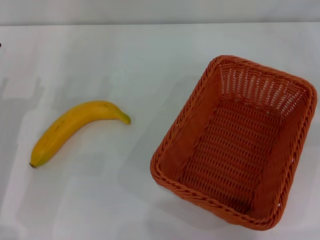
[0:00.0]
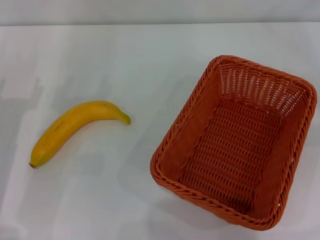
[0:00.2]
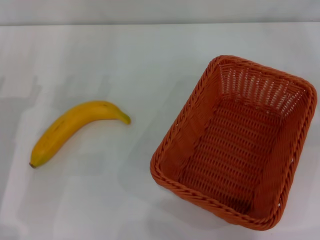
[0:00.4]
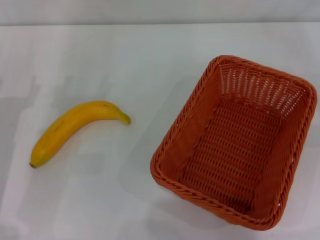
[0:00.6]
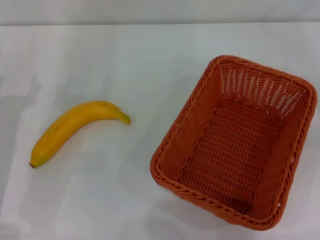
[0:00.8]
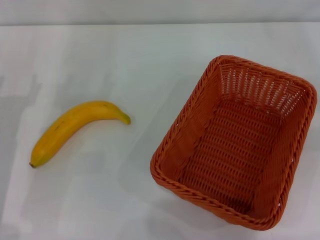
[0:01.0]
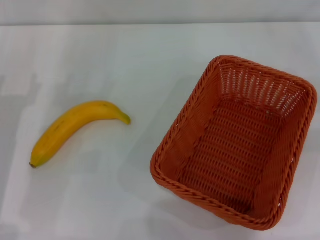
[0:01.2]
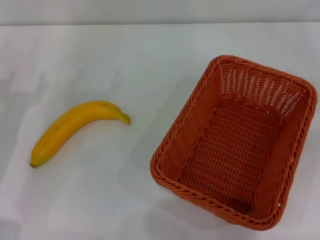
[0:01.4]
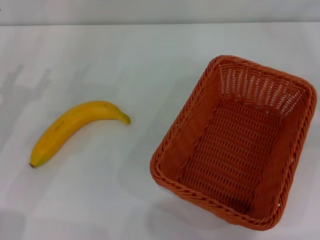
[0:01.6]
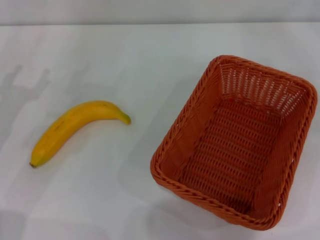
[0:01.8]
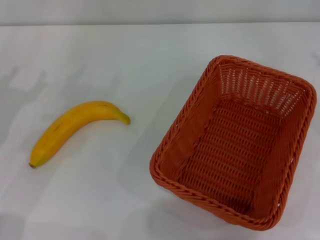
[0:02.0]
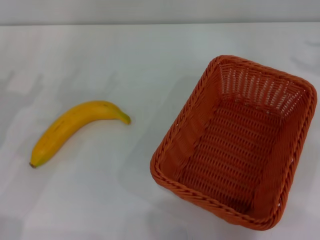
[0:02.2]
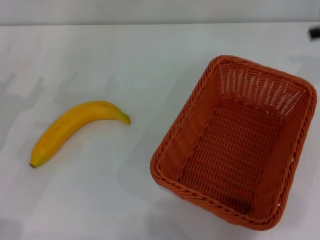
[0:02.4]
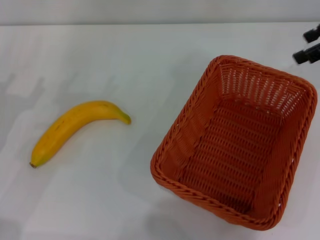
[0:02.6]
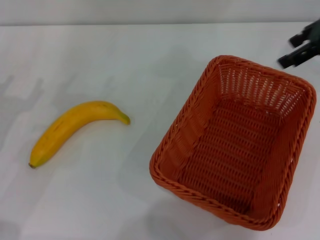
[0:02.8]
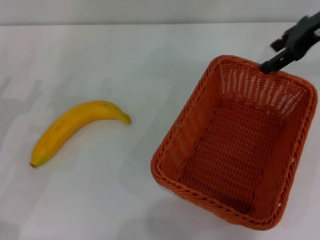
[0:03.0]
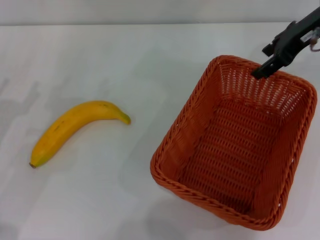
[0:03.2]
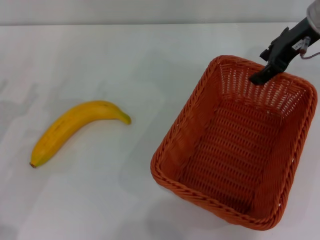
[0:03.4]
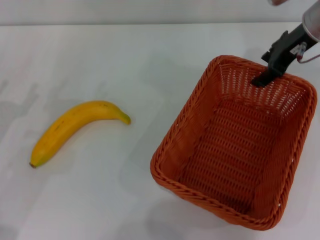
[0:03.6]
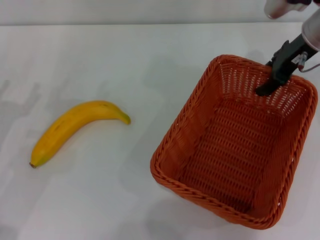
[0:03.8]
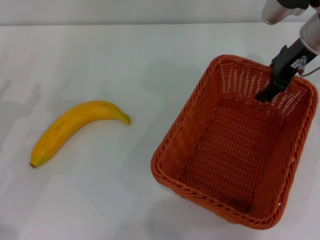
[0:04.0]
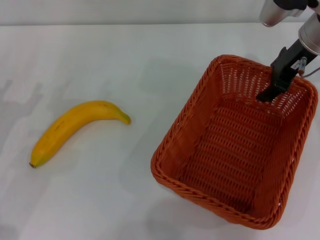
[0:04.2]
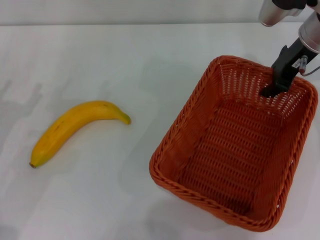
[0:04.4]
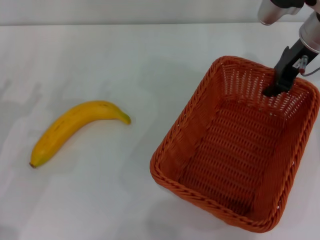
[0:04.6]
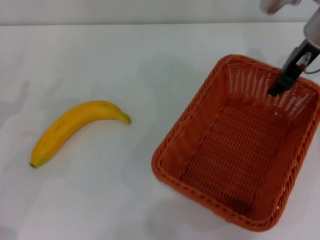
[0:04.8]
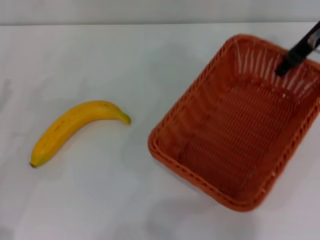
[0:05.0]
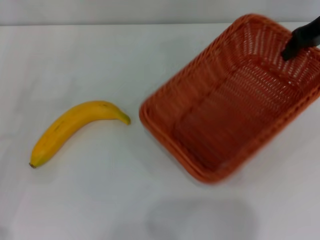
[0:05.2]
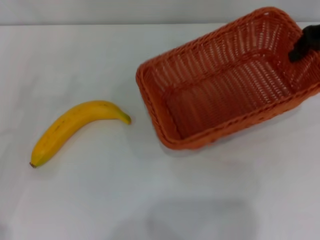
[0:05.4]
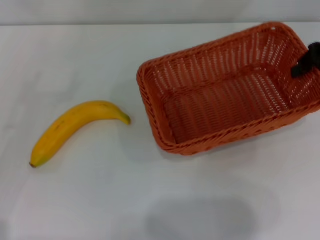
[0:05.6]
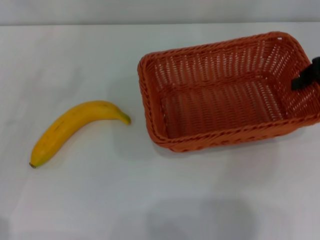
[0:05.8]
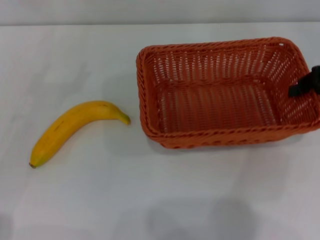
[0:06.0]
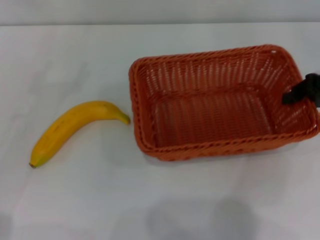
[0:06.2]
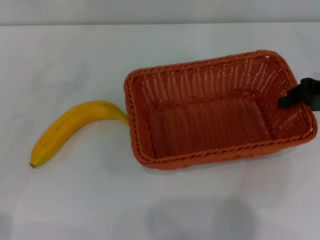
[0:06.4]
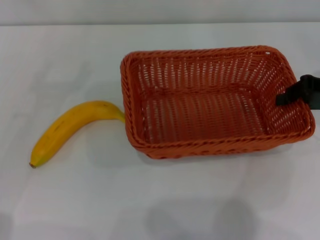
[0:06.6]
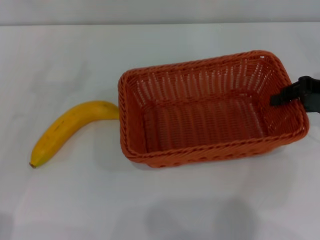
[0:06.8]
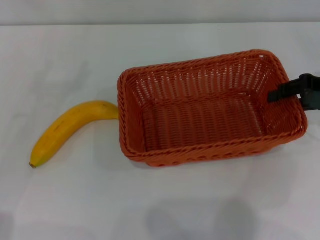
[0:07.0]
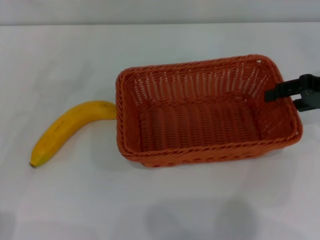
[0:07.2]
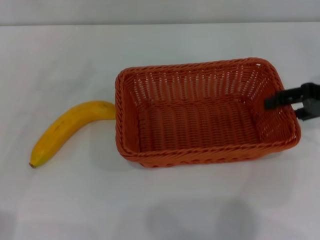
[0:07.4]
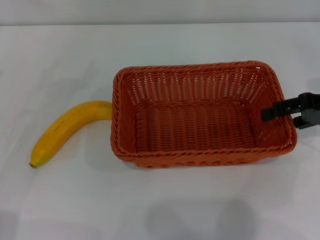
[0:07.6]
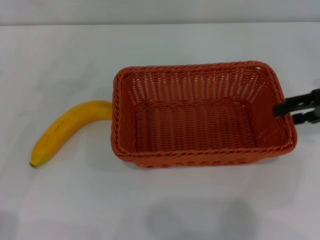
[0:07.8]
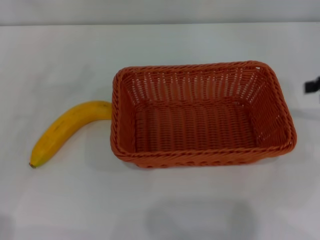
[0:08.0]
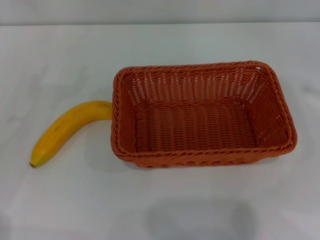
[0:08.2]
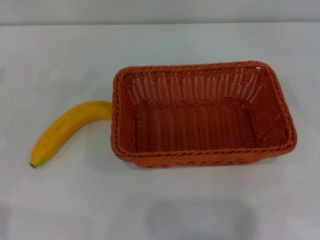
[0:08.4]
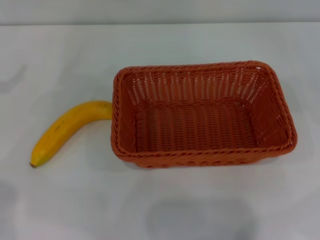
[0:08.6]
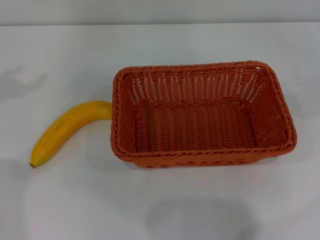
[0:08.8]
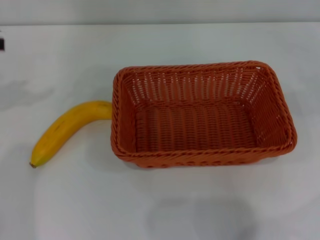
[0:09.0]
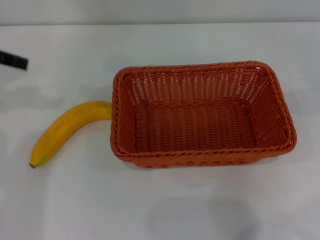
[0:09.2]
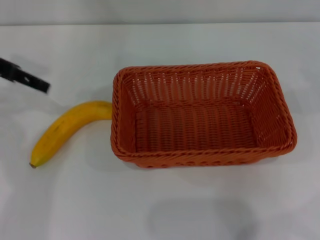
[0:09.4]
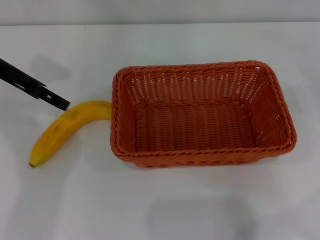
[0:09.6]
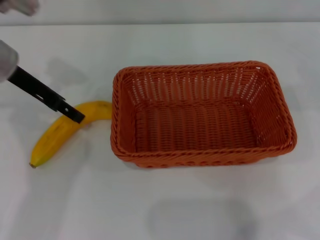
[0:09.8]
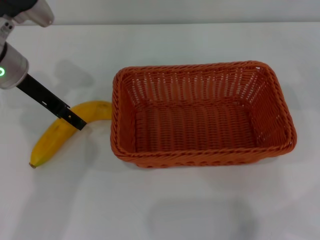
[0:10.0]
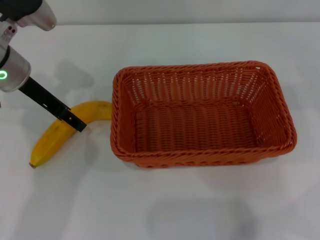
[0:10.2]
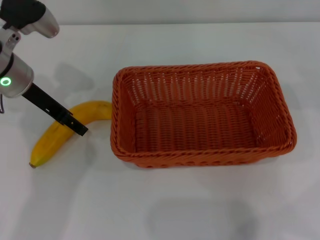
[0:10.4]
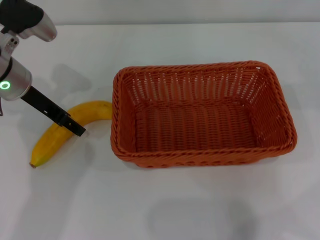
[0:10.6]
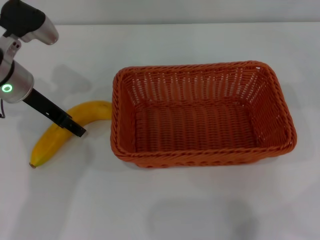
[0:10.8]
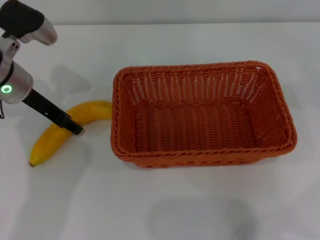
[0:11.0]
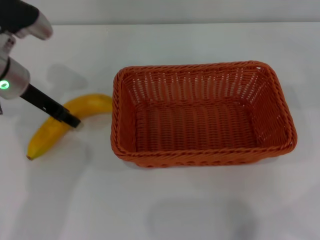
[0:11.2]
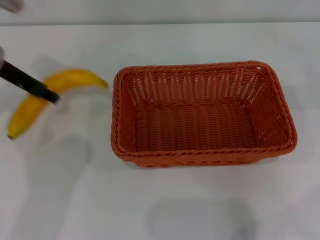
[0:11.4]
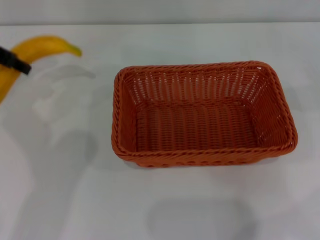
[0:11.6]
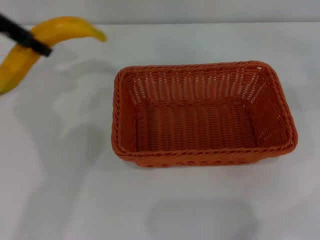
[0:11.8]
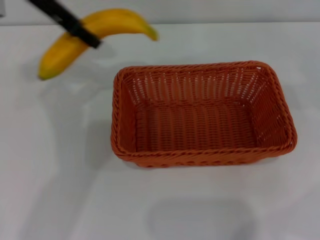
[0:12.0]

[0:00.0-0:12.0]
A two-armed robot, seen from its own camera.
Step, 0:00.0 to 0:05.0: Pick up the light basket with the right gripper.
Step, 0:05.2 to 0:07.8: Place the light basket in the center of view with the right gripper.
Step, 0:08.0 to 0:11.4: Pick up the banana with the left gripper.
0:01.6 to 0:03.0: The right gripper travels to the left, forward and upward by some 25 cm.
0:03.0 to 0:04.4: The right gripper moves approximately 5 cm.
0:04.4 to 0:06.0: The left gripper moves to the left and upward, roughly 10 cm. Meanwhile the right gripper heads to the right and backward, covering roughly 15 cm, and closes up.
0:06.0 to 0:07.6: The right gripper opens its fingers.
0:07.6 to 0:09.0: The right gripper shifts about 15 cm to the right.
0:09.0 to 0:10.4: The left gripper moves to the right and downward, roughly 15 cm.
0:10.4 to 0:12.0: The left gripper shifts roughly 15 cm upward, and closes its fingers.

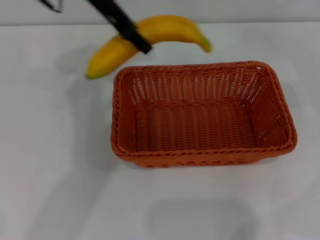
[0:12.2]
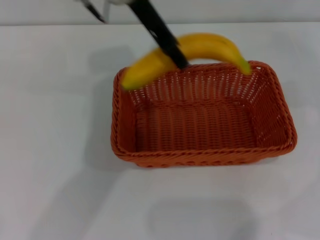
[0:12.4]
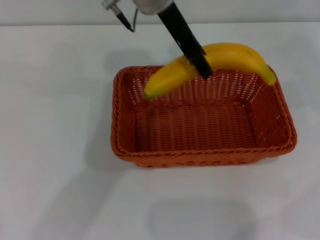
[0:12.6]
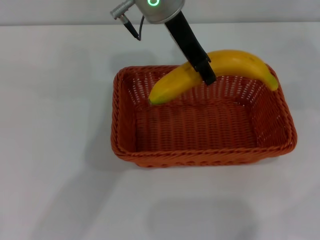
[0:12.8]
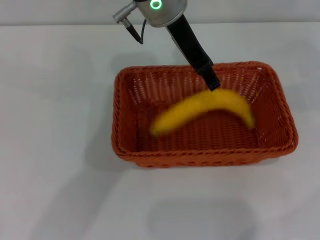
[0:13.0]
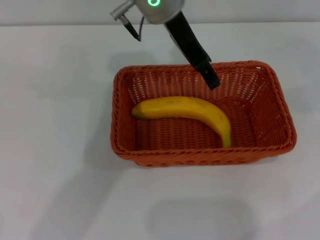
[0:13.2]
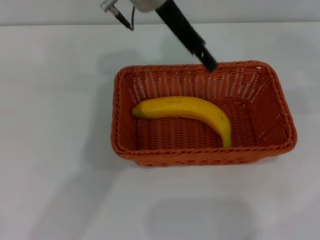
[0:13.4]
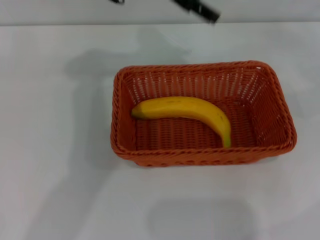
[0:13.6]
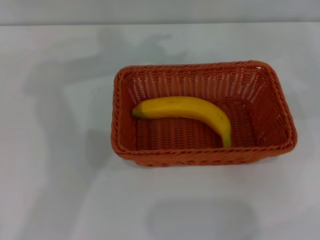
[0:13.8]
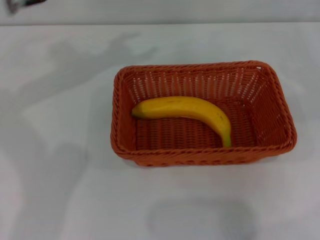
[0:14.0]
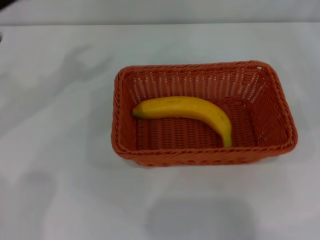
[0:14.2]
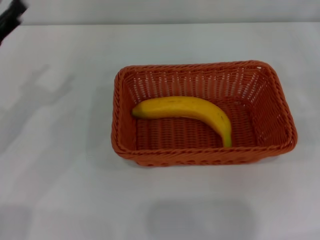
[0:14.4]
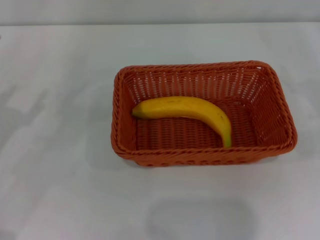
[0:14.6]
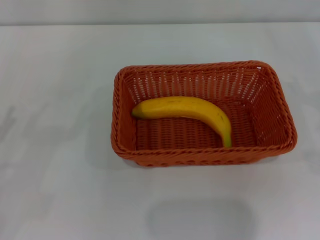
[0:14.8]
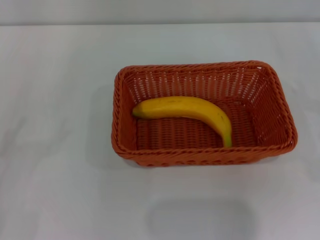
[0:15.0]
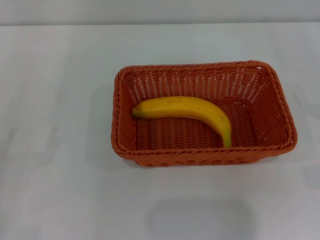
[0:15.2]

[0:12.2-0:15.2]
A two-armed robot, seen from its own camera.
Step, 0:12.2 to 0:13.4: Place the banana into the light basket with the left gripper.
0:12.2 to 0:13.8: The left gripper travels to the right and back again, approximately 10 cm each way, and opens.

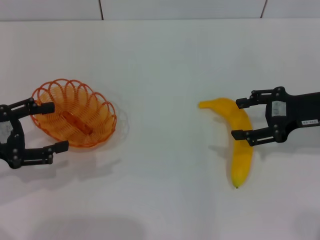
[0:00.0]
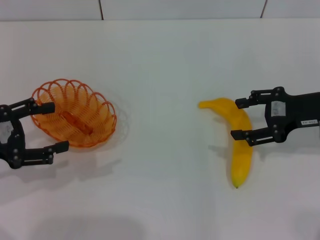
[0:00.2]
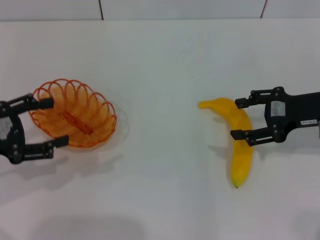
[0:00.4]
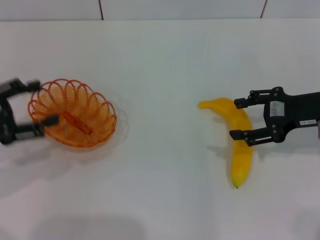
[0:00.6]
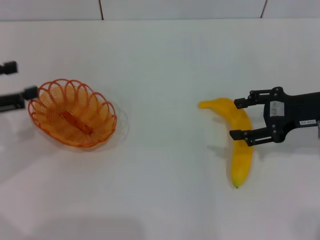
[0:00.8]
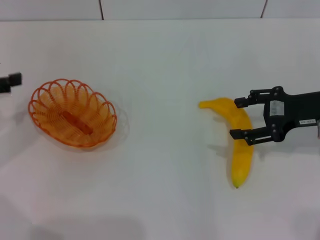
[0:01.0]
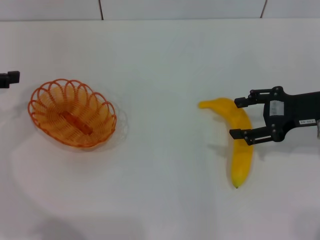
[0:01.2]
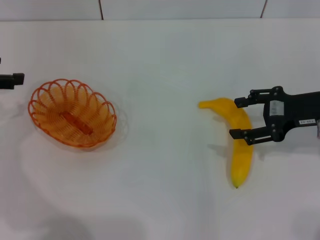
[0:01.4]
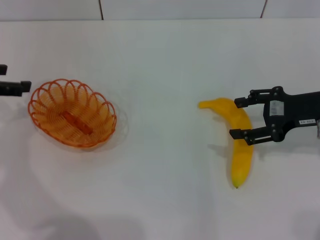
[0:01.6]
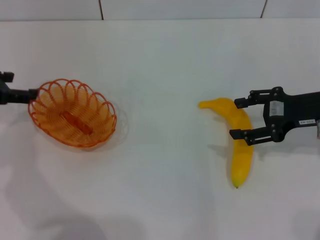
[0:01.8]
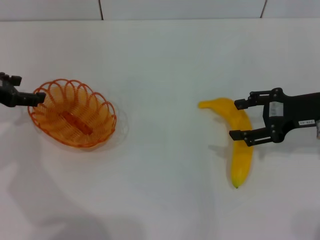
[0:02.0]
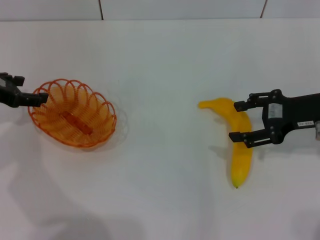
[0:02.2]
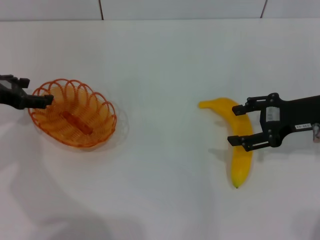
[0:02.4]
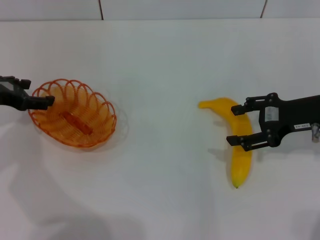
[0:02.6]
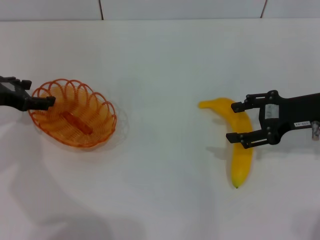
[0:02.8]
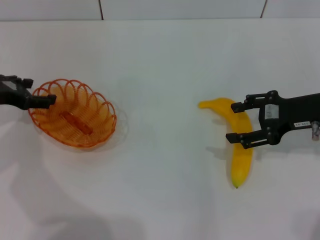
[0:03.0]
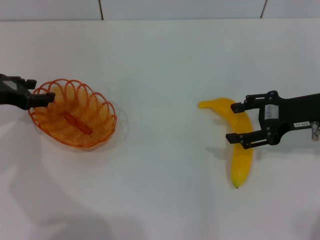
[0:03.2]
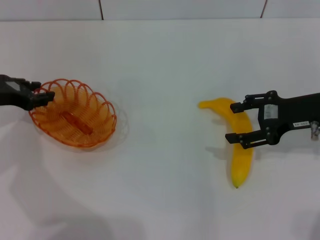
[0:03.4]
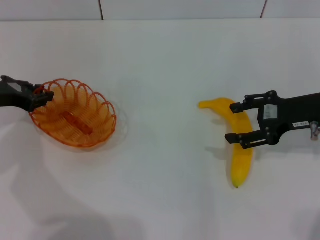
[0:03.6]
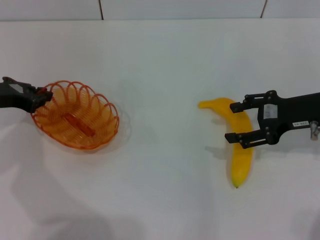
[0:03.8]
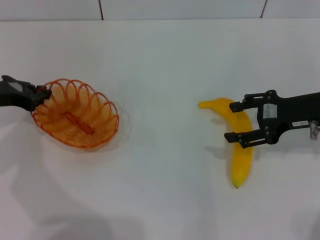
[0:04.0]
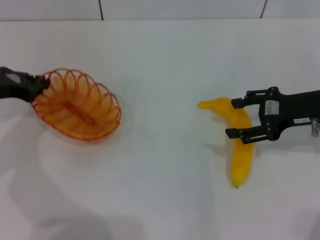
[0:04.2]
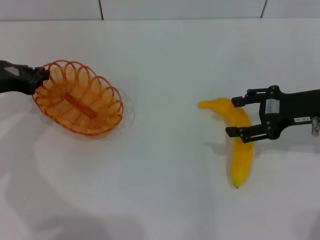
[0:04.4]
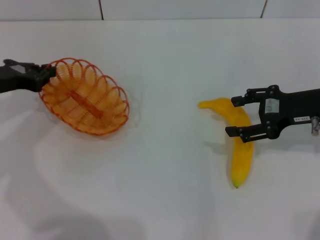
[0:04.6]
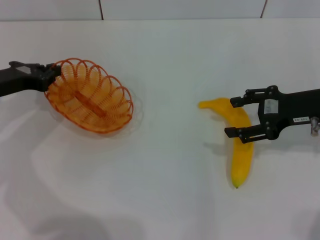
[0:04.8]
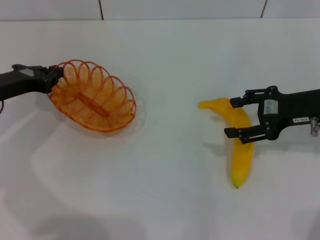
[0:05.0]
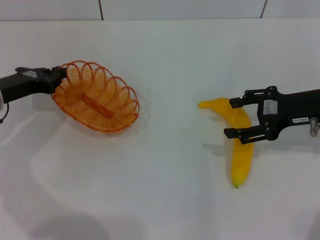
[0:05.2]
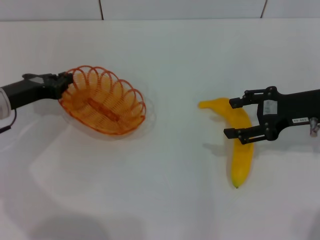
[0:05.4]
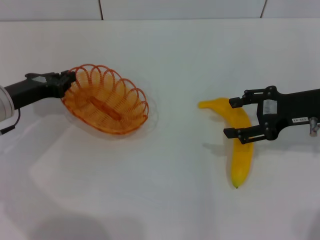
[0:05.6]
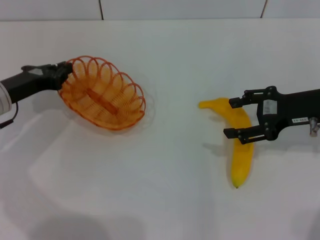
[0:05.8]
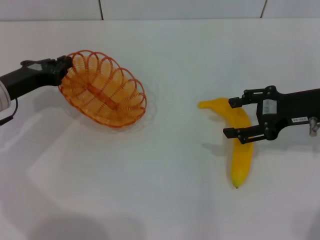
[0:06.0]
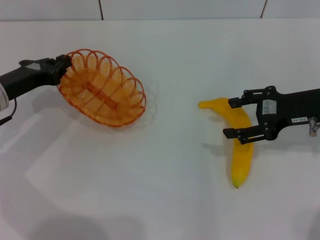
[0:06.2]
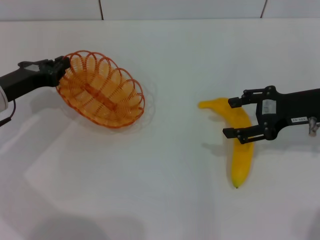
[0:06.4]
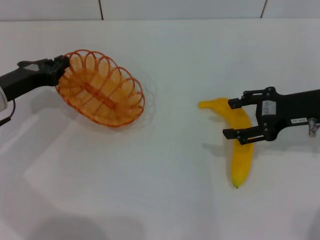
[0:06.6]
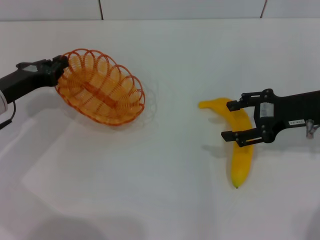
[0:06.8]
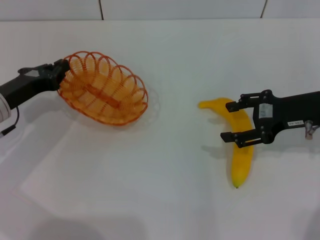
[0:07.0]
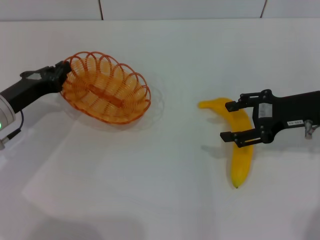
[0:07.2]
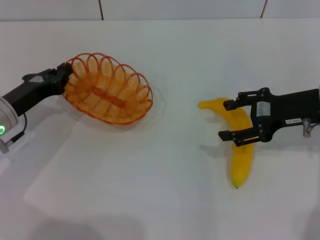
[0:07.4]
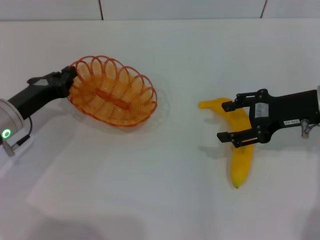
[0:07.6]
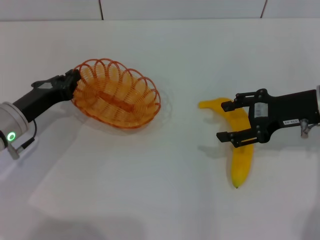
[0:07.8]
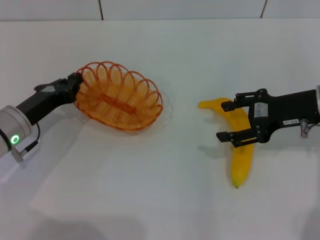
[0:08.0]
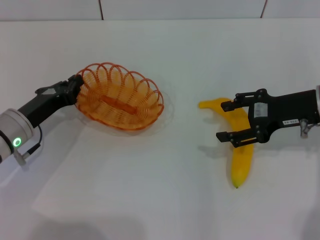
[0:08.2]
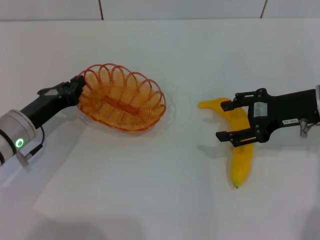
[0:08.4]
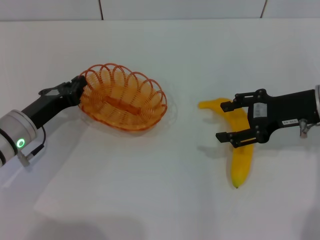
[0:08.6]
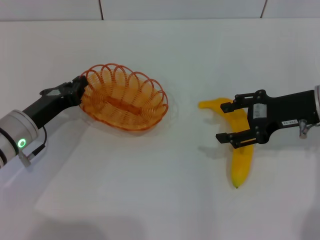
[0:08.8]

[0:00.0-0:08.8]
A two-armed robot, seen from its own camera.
Step, 0:00.0 to 0:06.0: Pick up the basket with the left gripper.
0:00.0 to 0:01.4: The left gripper travels forward and upward by some 10 cm.
0:01.4 to 0:03.0: The left gripper heads downward, covering roughly 5 cm.
0:03.0 to 0:04.4: The left gripper closes.
0:04.4 to 0:05.8: The left gripper moves about 5 cm.
0:05.8 to 0:07.4: The grippers move only a little.
0:07.4 to 0:08.8: The grippers move only a little.
